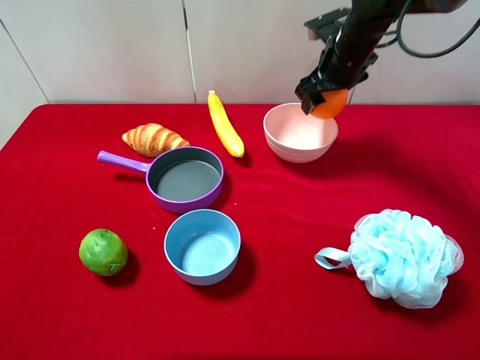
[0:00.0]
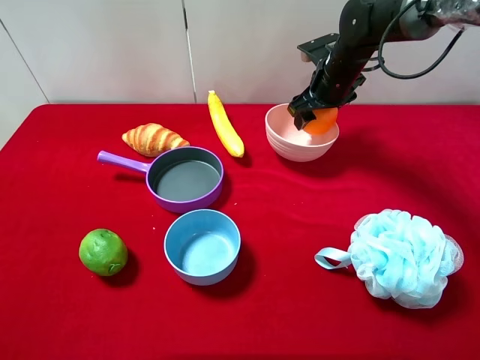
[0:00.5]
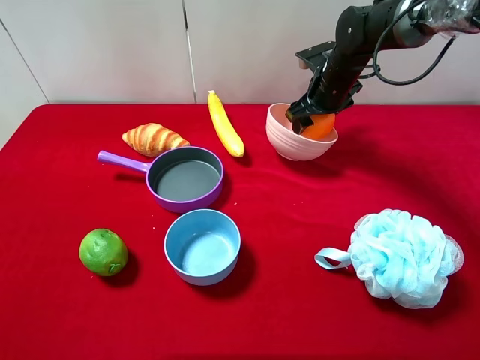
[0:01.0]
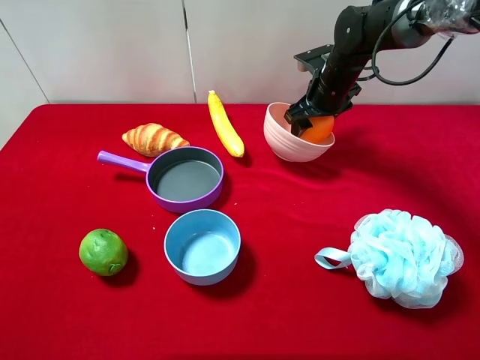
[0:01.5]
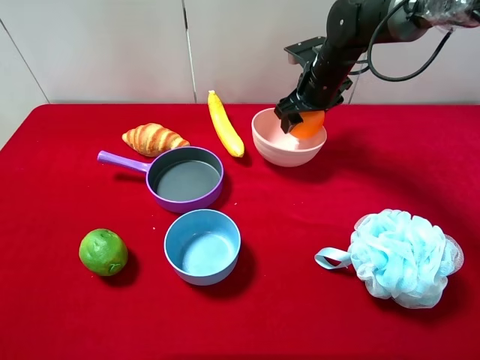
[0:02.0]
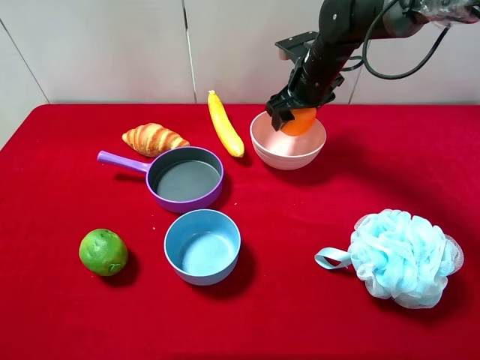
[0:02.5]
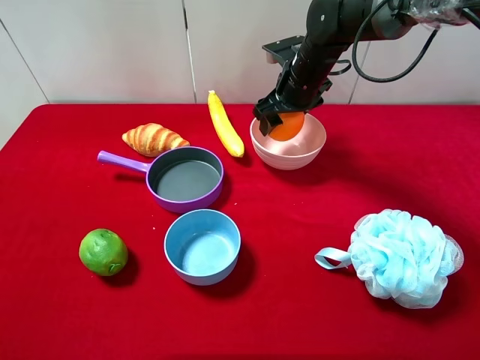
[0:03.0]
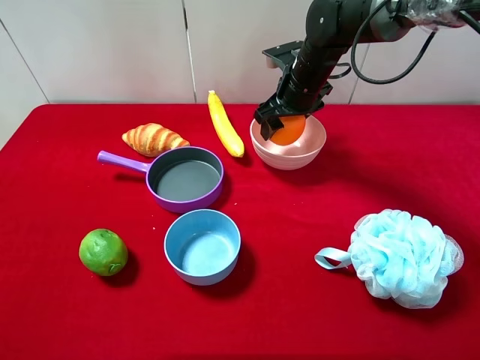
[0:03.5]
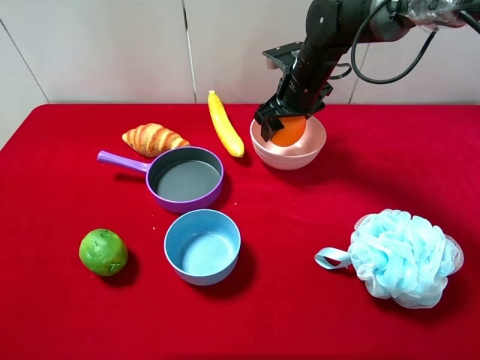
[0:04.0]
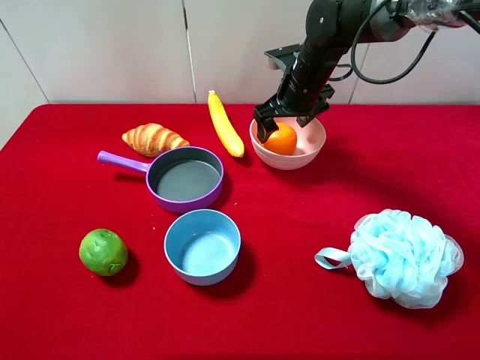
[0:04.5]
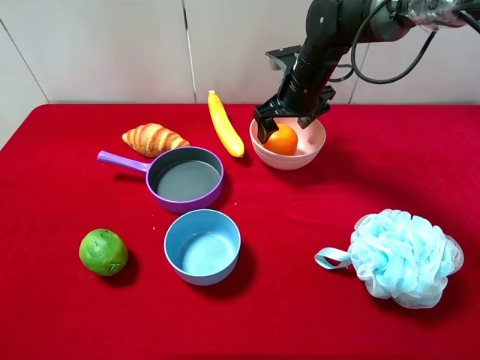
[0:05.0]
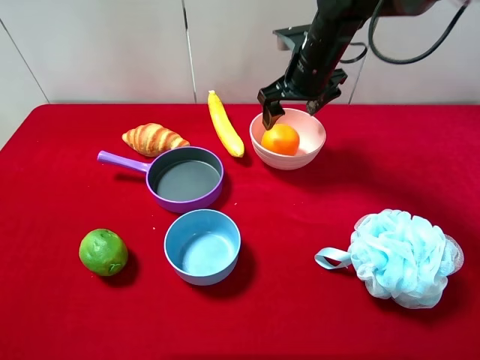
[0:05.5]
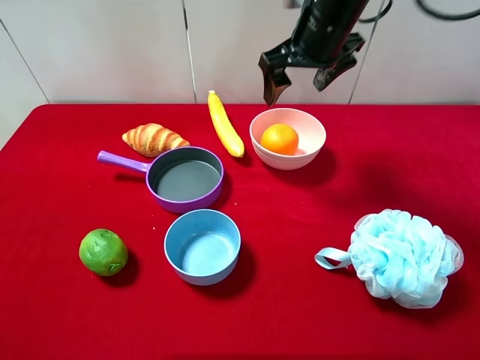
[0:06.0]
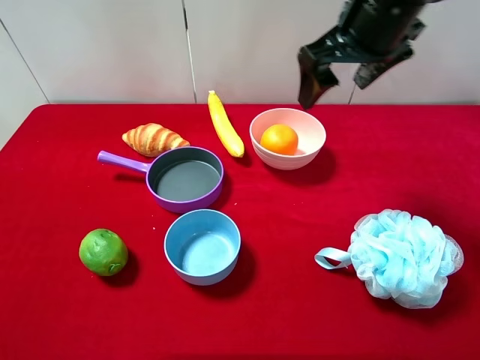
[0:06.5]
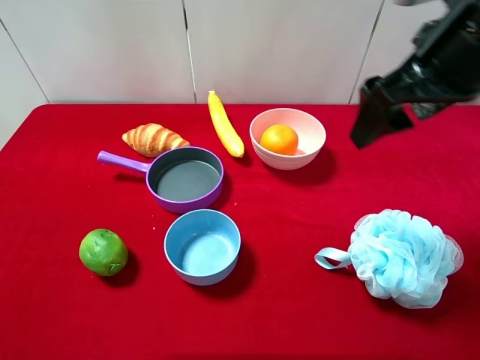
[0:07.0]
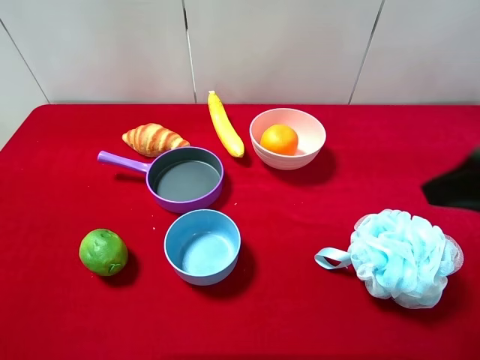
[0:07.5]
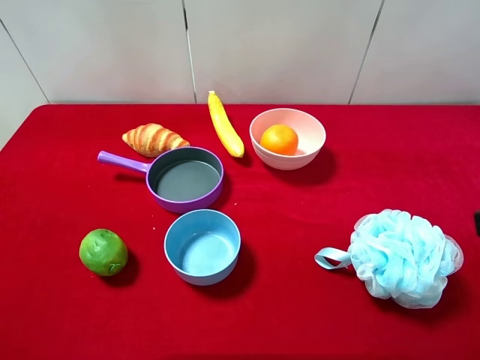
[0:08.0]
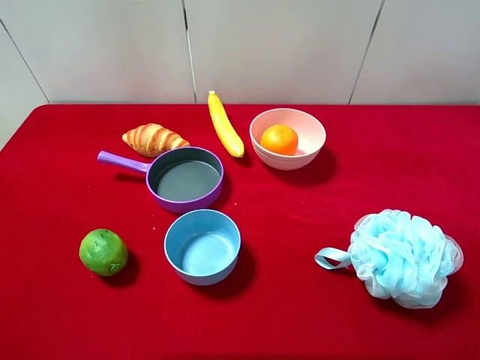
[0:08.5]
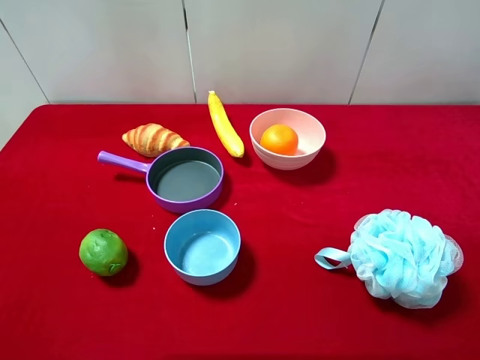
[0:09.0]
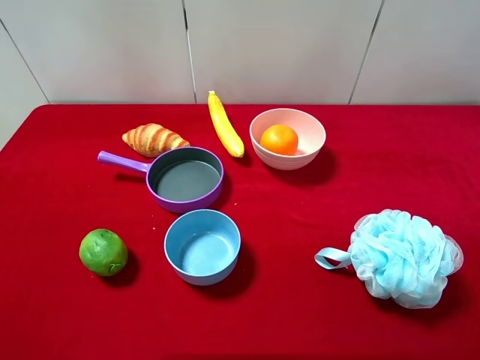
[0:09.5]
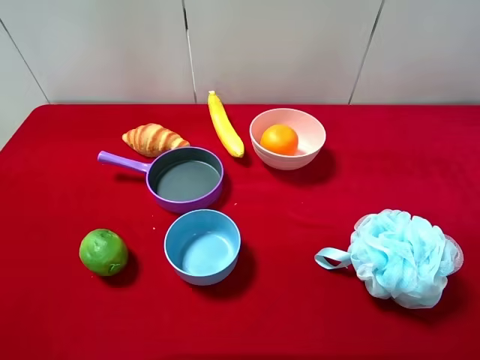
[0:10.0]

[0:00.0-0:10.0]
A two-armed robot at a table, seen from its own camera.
Task of the whole recording: pick up an item with a gripper and place it in a random container on the desktop.
0:00.0 to 0:02.0: The grippers stay close to where they were, moving slightly.
0:02.0 to 0:04.0: The grippers stay close to where they were, moving slightly.
0:04.0 to 0:06.0: The right gripper heads upward and backward, covering approximately 15 cm, and opens up.
0:06.0 to 0:08.0: The right gripper moves backward and to the right, some 35 cm.
